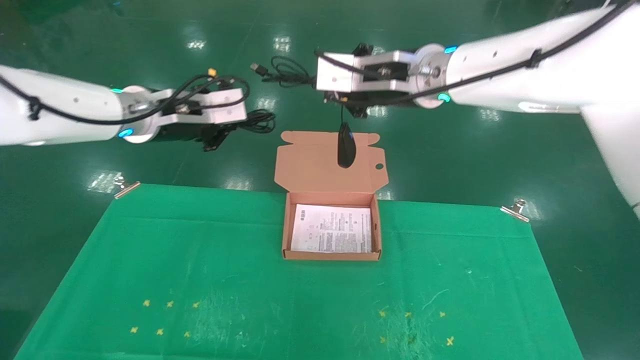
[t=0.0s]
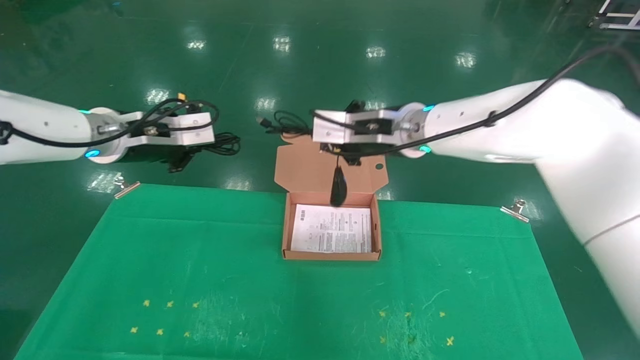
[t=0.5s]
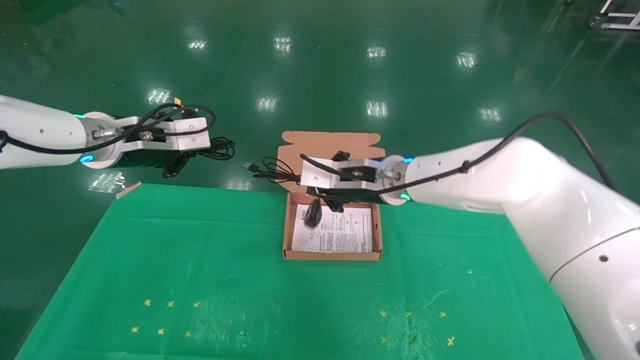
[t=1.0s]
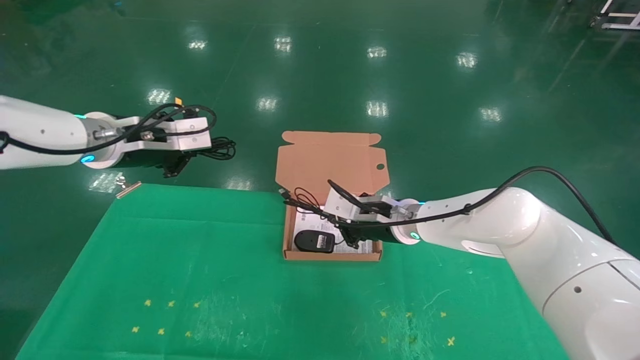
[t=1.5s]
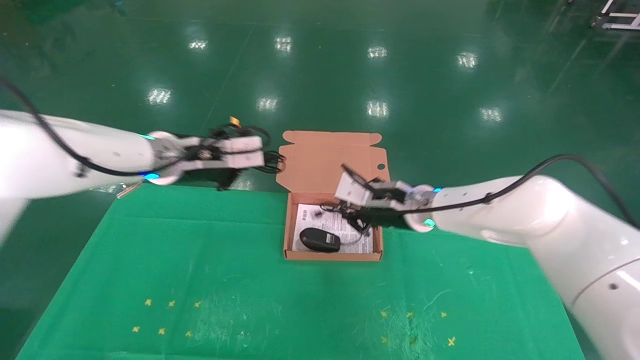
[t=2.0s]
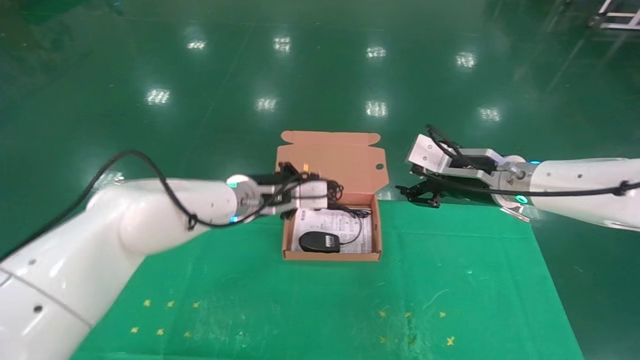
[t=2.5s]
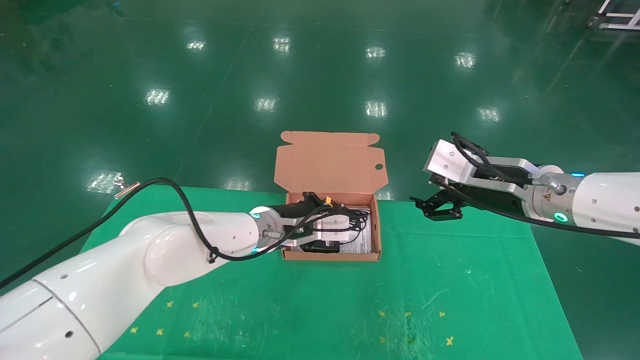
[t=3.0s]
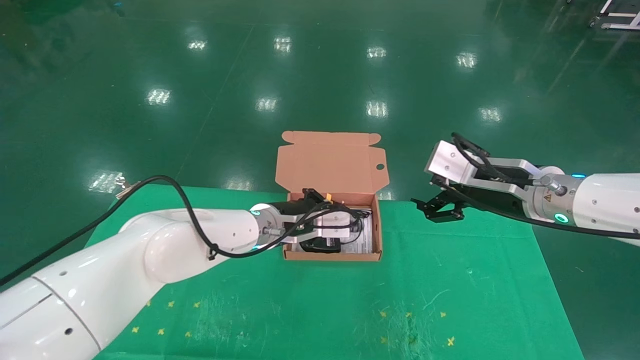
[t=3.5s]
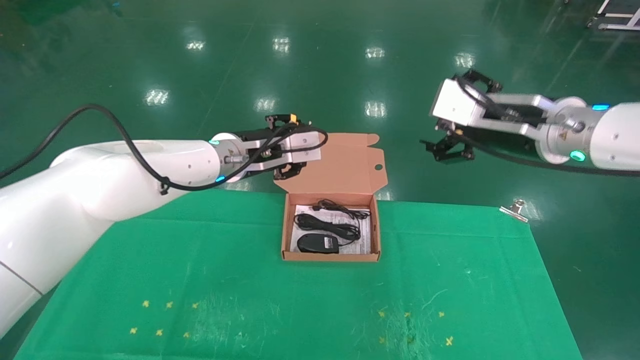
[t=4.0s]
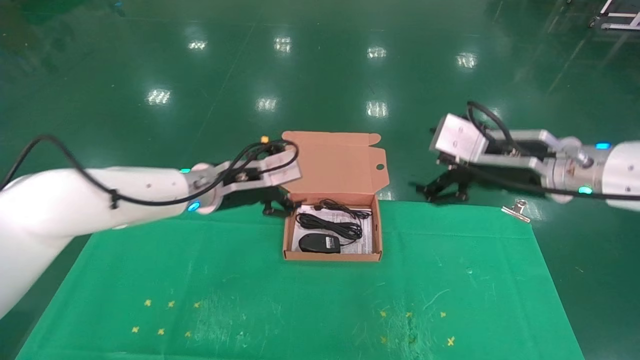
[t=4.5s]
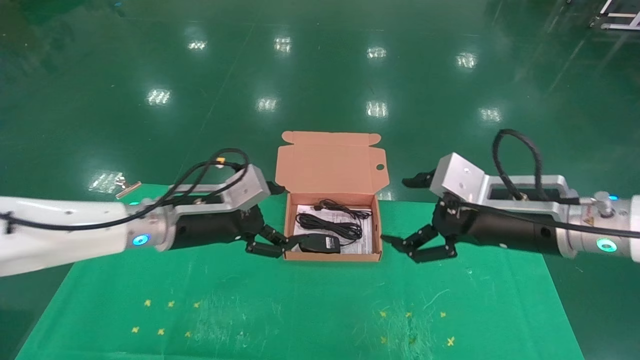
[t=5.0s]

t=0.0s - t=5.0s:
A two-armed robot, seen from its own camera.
Task of the whole recording: grasp data cable left put into box grasp mouse right put into box.
Step, t=0.0s - t=4.0s: Place the mouse and power cord into the box.
t=0.0s - t=2.5s: Both grippers travel together downward and to the right, about 20 cm. The right gripper opens up.
t=2.5s - t=5.0s: The right gripper is displaced backward by roughly 10 cm, and opens. The left gripper shifts approximately 15 cm to the left and backward, and opens up.
